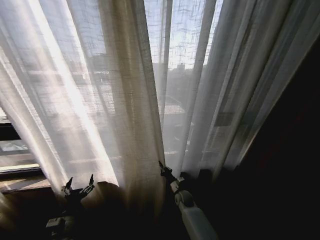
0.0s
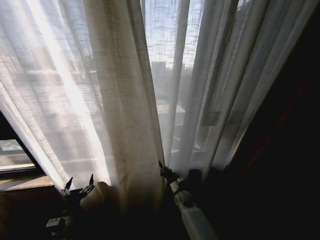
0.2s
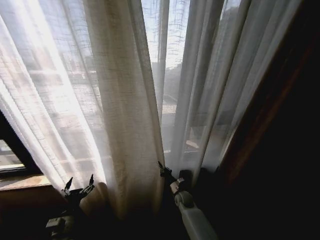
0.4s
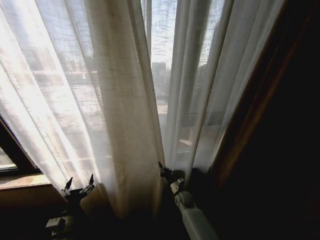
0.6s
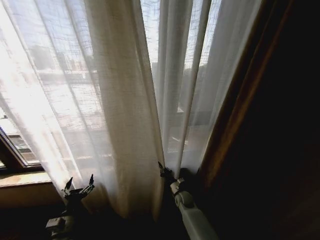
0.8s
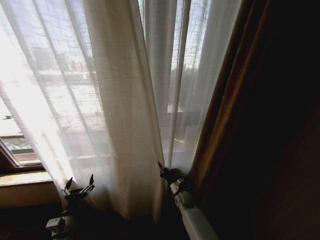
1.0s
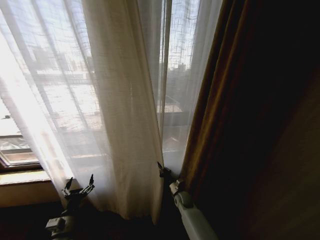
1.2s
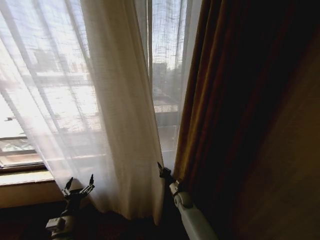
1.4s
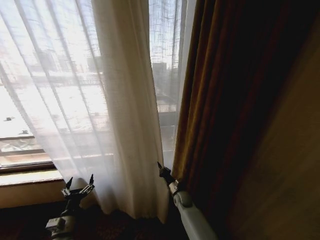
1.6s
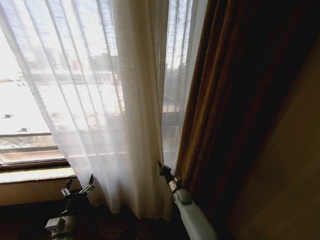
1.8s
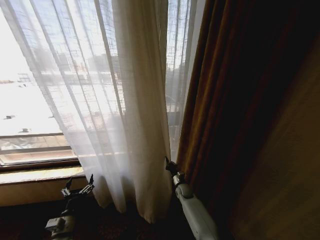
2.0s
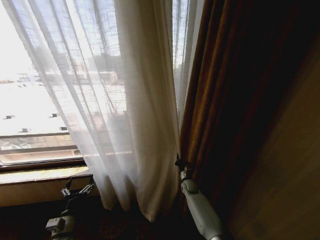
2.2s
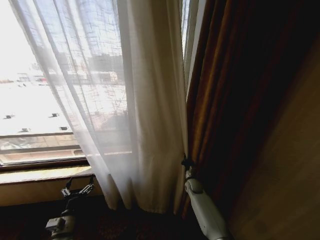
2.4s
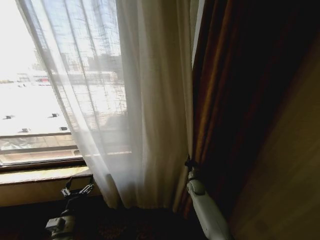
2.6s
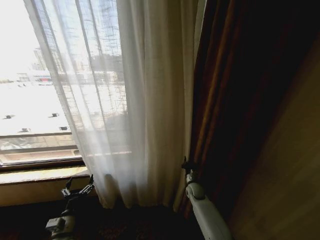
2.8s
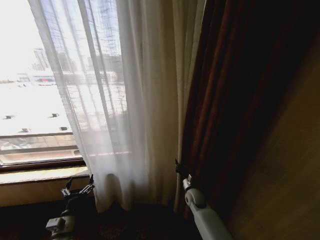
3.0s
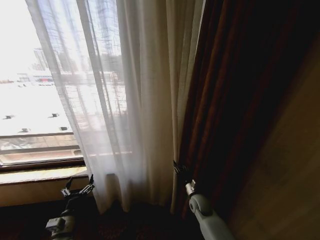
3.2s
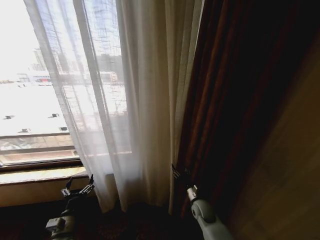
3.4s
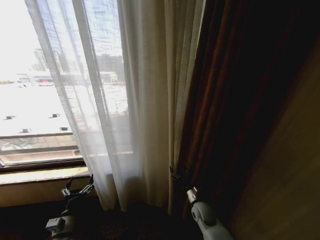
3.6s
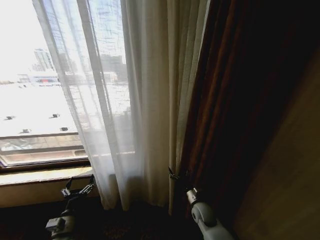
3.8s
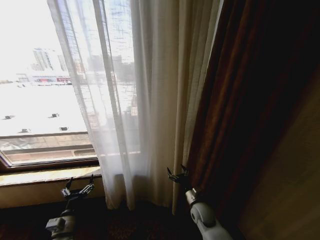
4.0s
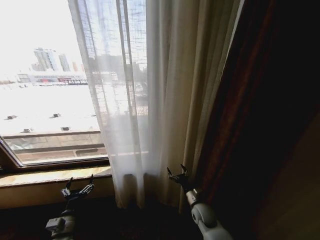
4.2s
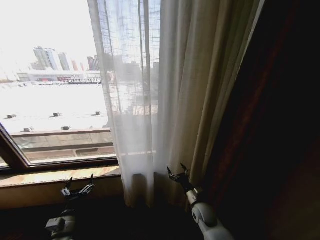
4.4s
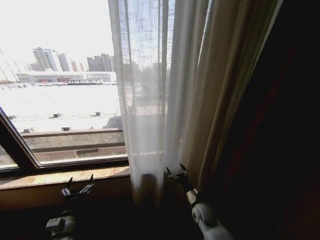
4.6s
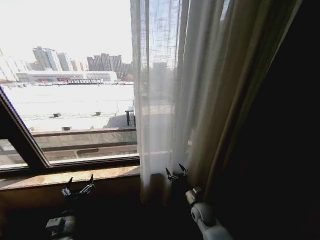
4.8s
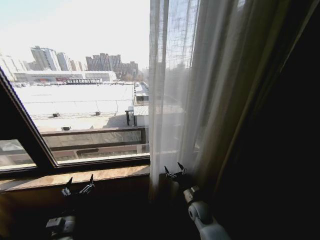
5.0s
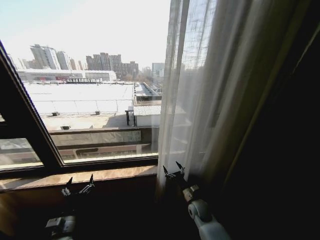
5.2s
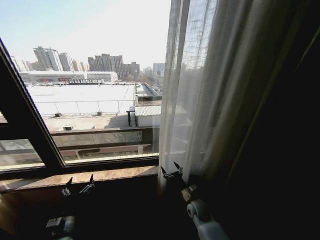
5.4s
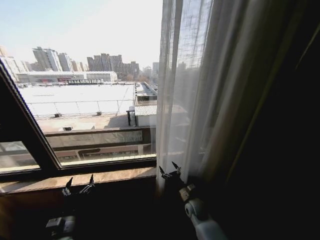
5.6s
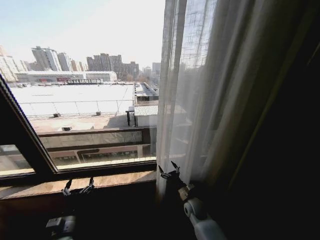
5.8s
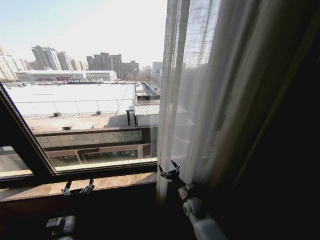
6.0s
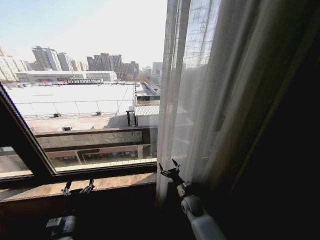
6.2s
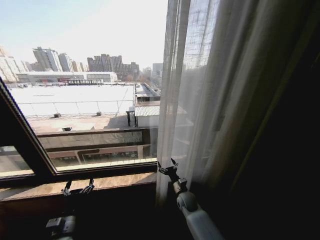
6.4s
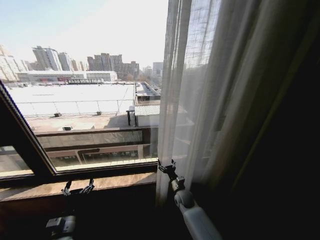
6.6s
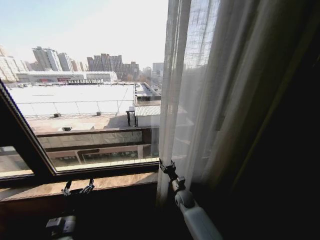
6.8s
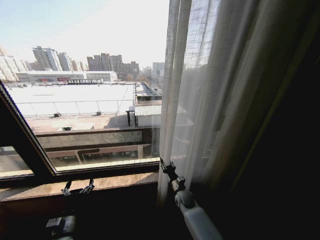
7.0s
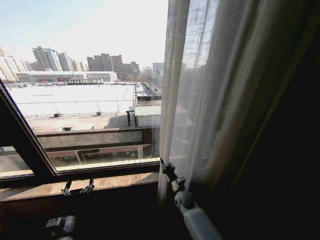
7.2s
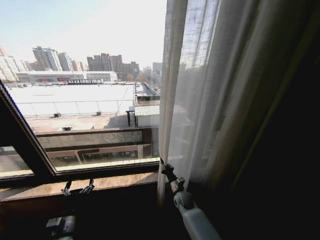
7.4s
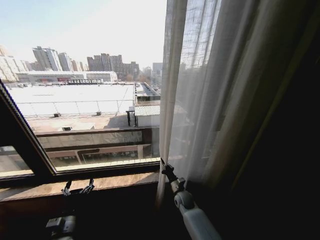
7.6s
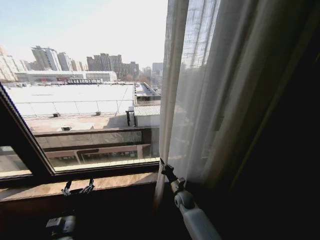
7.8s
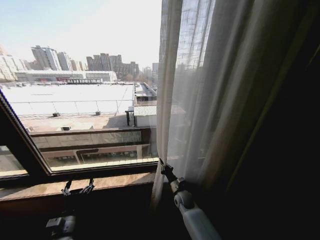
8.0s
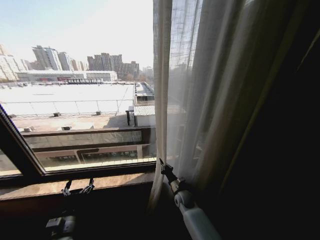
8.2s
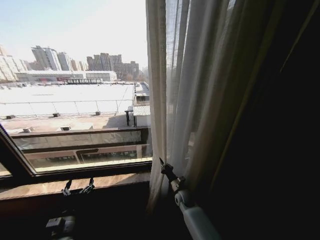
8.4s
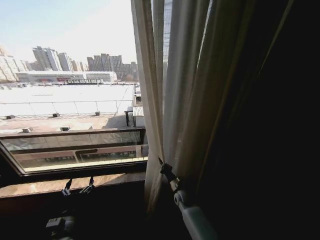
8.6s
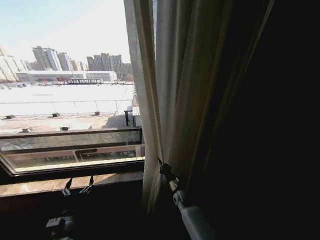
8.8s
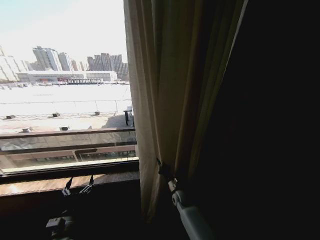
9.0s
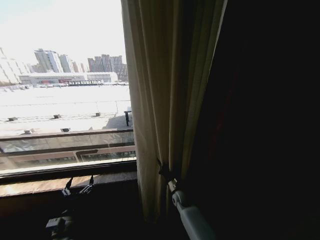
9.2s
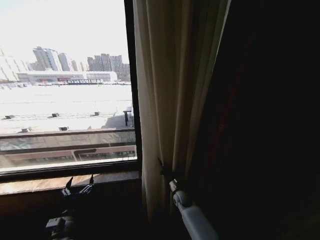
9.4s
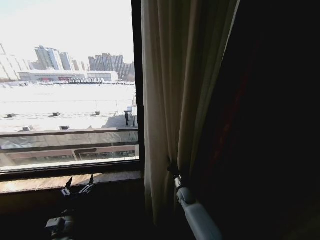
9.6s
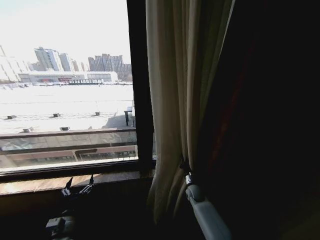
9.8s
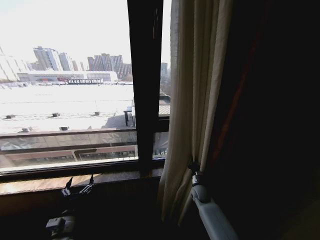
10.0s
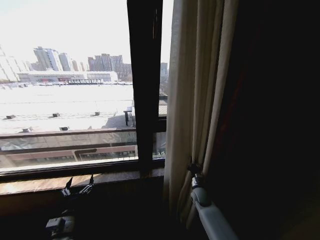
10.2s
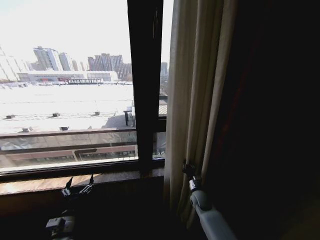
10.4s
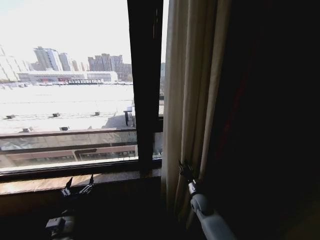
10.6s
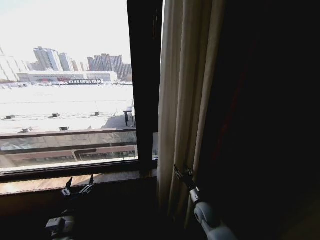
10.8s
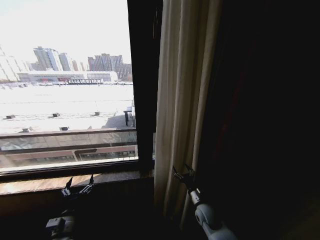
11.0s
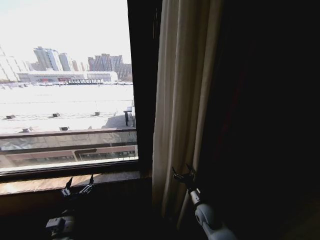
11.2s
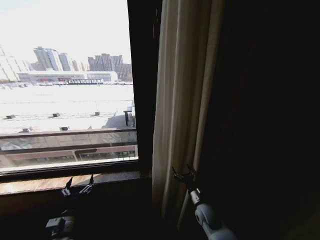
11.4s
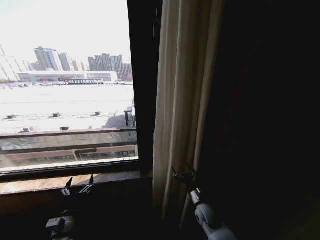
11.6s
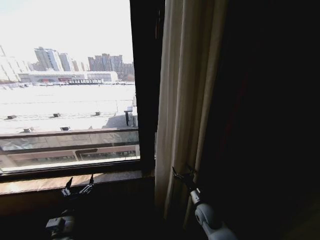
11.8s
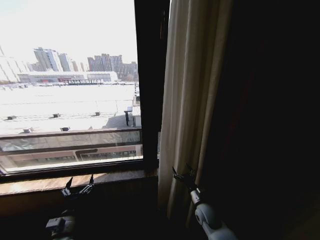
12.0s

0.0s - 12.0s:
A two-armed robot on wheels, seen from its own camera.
Task of the whole recording: Open the curtains by pulling them apart, changing their state from closed to fully open.
1.6s - 3.0s: The right gripper is displaced upward and to the right by about 10 cm.
3.0s - 4.4s: The right gripper travels backward by roughly 5 cm, and opens its fingers.
6.0s - 7.6s: The right gripper changes place by approximately 5 cm, and closes its fingers.
9.0s - 10.4s: The right gripper is displaced to the right by about 10 cm.
10.4s - 12.0s: The right gripper moves backward, about 5 cm, and opens its fingers.

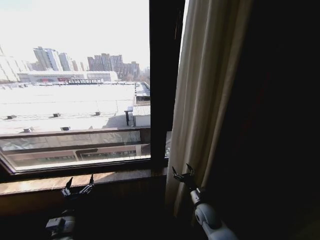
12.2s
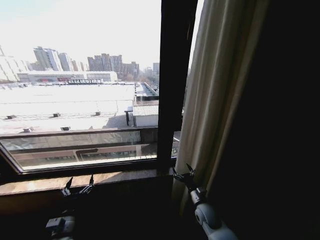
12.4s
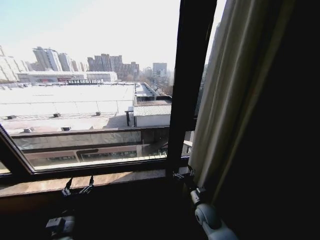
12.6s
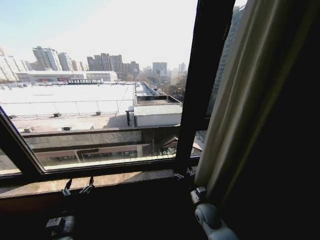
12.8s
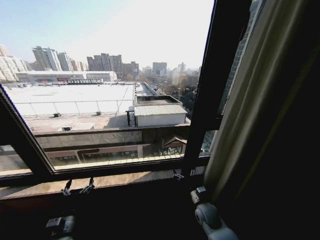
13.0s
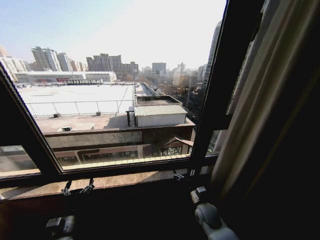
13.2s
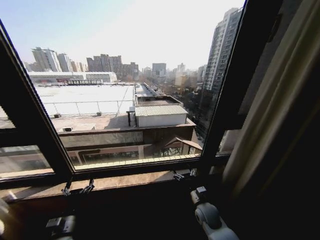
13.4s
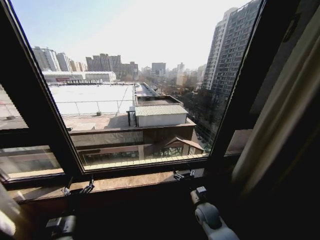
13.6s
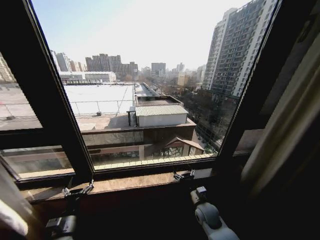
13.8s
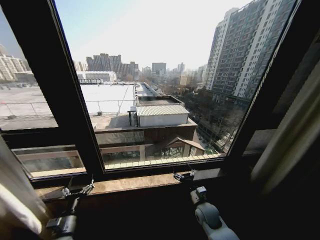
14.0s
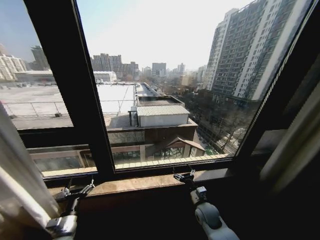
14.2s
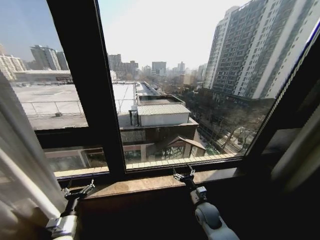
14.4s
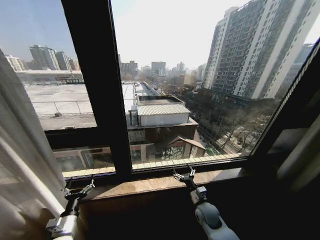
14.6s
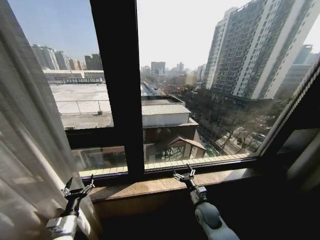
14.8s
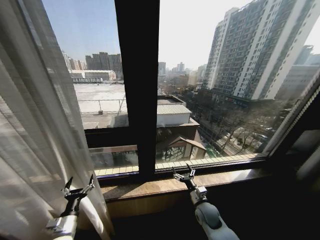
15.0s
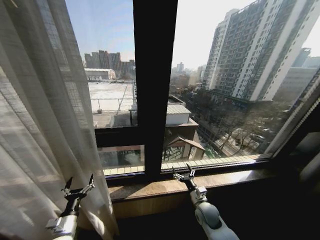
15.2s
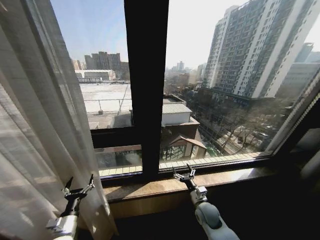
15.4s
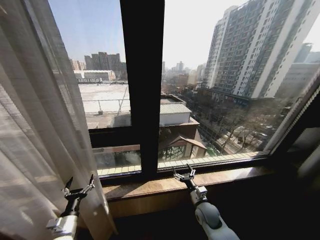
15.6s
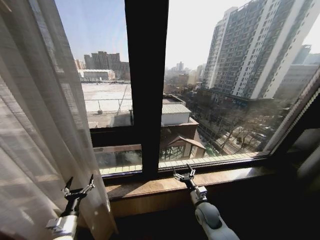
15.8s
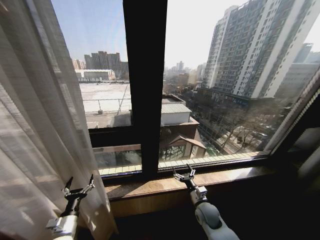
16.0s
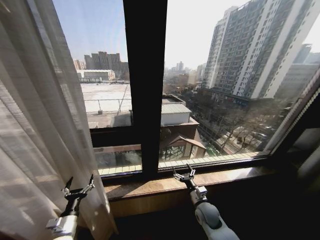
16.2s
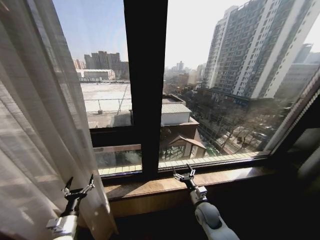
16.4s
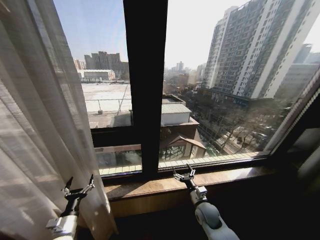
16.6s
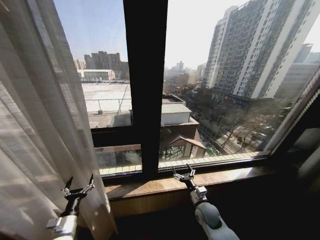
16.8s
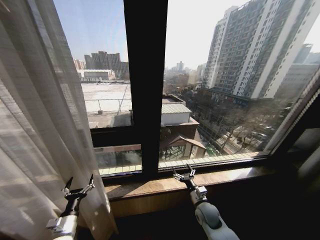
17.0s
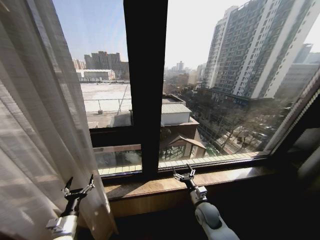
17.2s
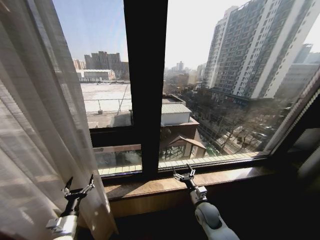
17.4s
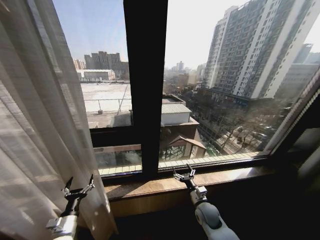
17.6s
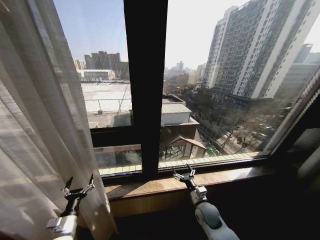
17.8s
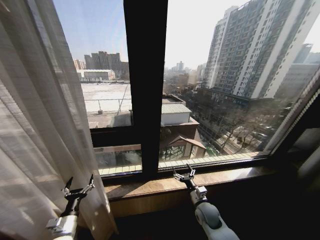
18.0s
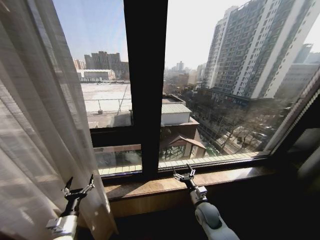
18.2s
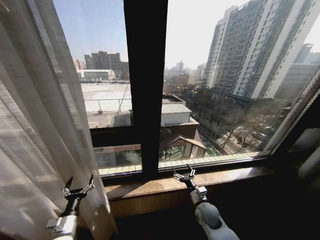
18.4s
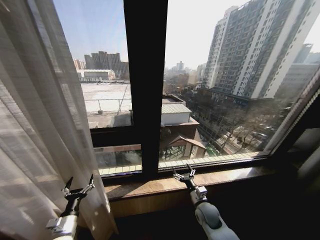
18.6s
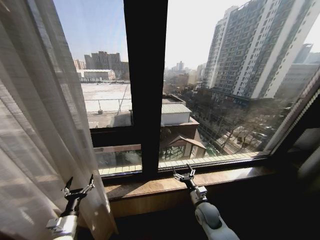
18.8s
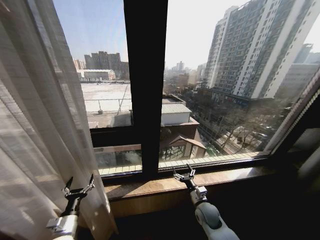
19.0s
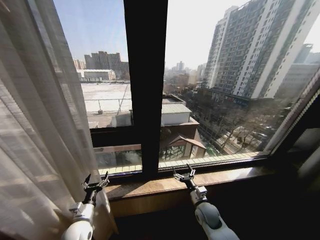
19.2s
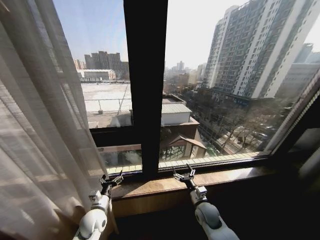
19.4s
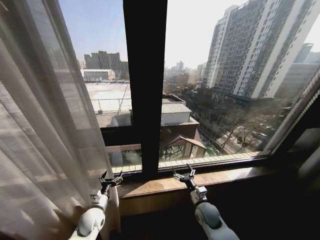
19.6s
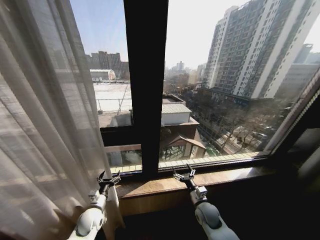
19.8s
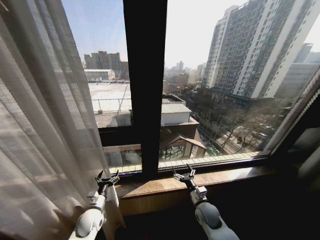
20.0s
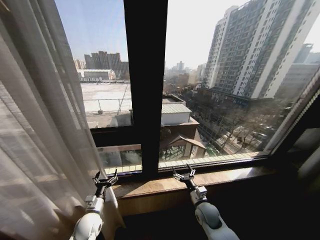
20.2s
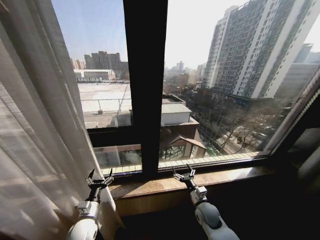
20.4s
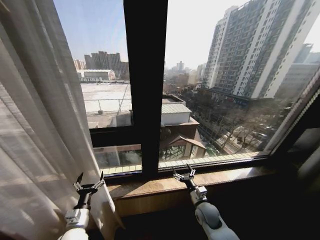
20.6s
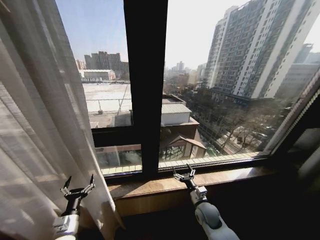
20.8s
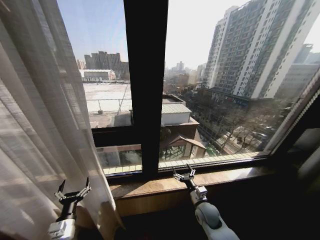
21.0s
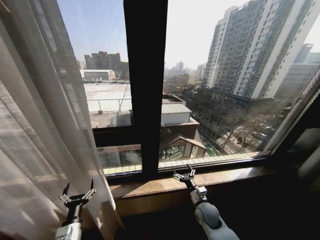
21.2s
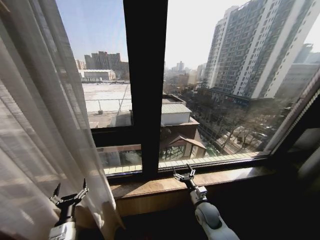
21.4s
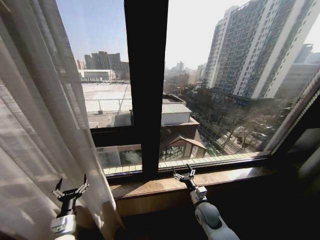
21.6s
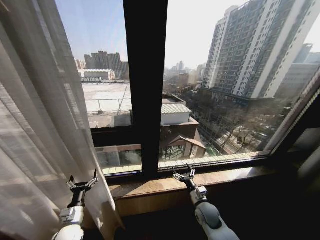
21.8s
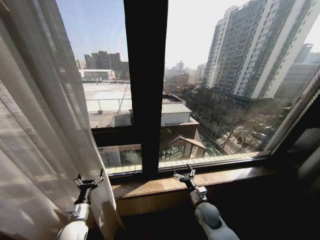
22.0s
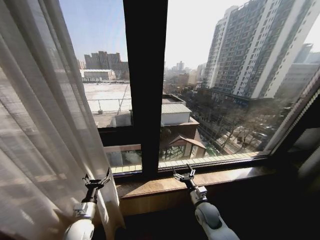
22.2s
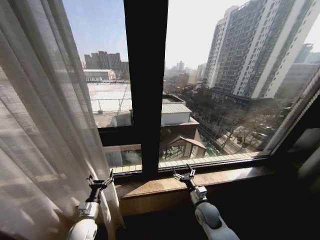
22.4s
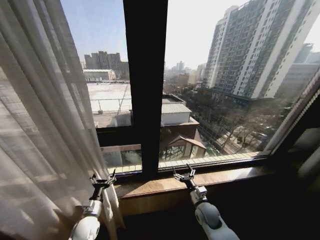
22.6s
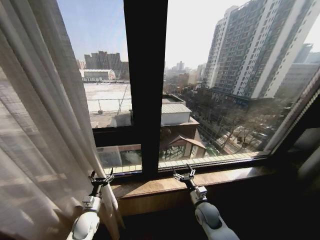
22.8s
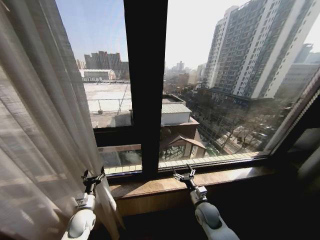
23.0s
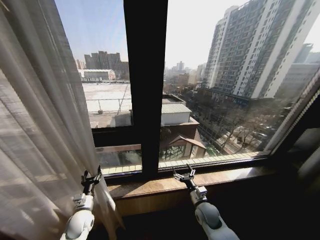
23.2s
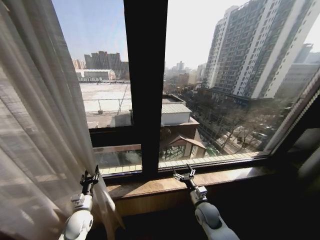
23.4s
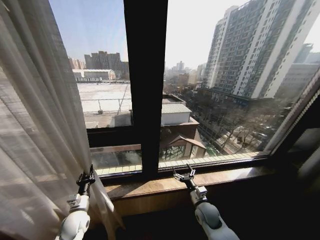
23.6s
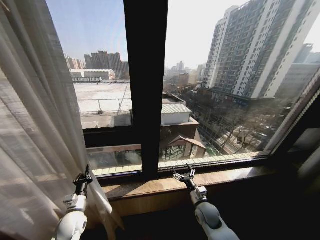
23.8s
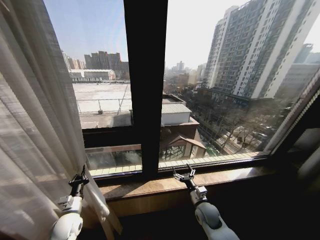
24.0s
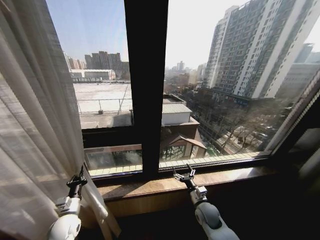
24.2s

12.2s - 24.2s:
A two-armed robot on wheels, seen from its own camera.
Task of the whole recording: Open the curtains by pulling them apart, changing their state from closed to fully open.
15.2s - 18.2s: Both grippers stay about where they are.
18.2s - 19.8s: The left gripper shifts approximately 10 cm forward and to the right.
19.8s - 21.2s: The left gripper shifts some 15 cm backward.
21.2s - 22.6s: The left gripper moves forward, about 10 cm.
22.6s - 24.2s: The left gripper travels to the left by roughly 5 cm, and closes up.
